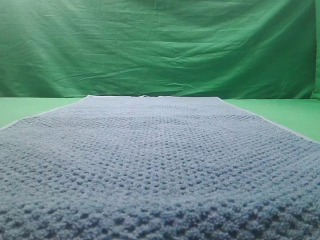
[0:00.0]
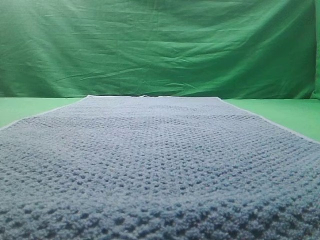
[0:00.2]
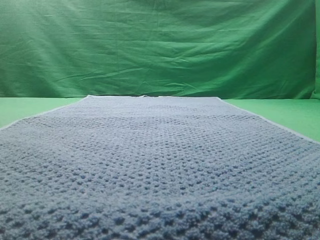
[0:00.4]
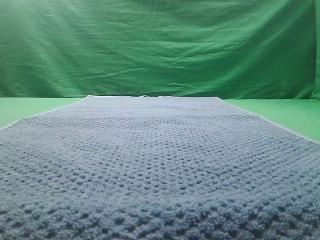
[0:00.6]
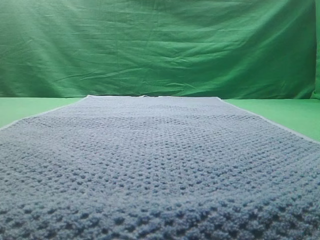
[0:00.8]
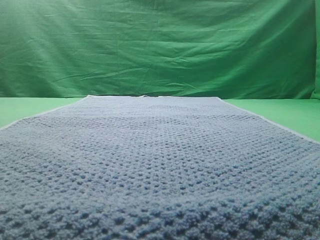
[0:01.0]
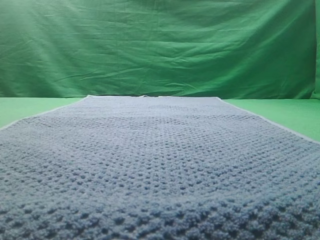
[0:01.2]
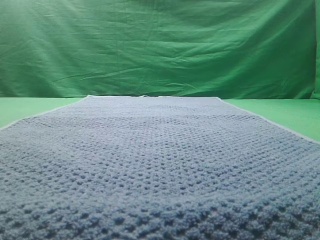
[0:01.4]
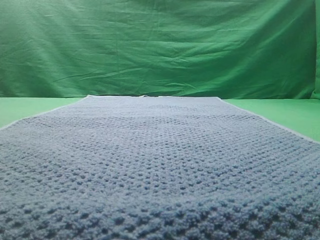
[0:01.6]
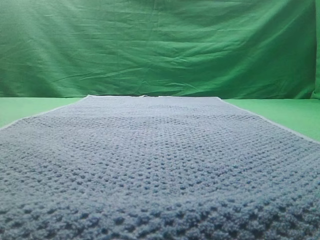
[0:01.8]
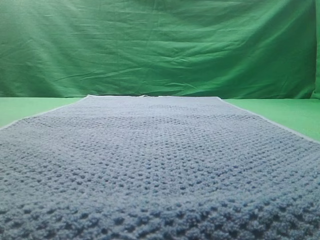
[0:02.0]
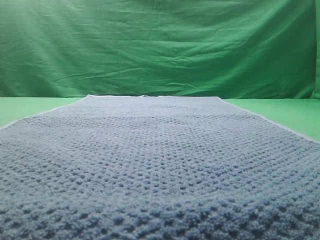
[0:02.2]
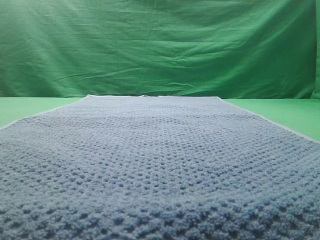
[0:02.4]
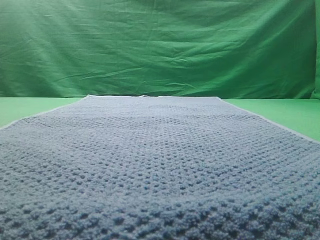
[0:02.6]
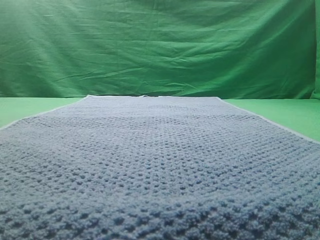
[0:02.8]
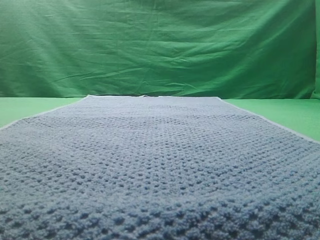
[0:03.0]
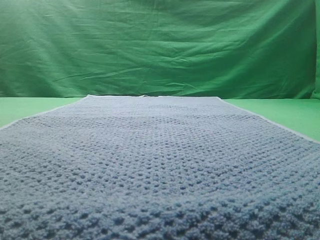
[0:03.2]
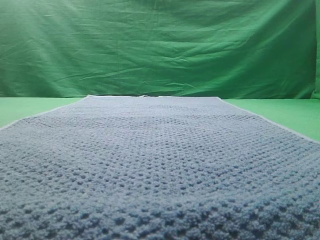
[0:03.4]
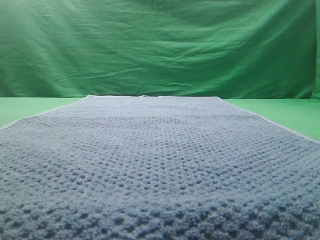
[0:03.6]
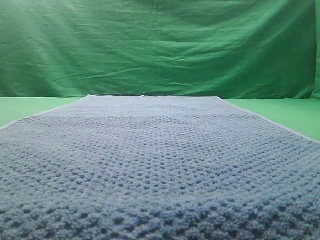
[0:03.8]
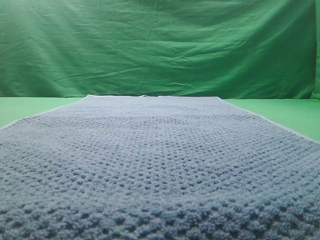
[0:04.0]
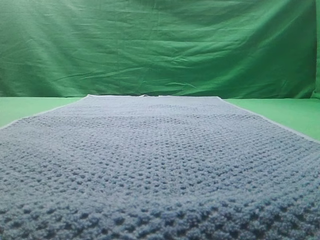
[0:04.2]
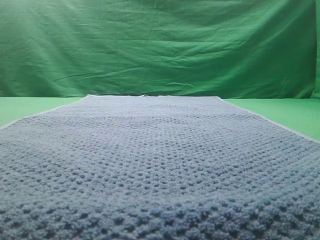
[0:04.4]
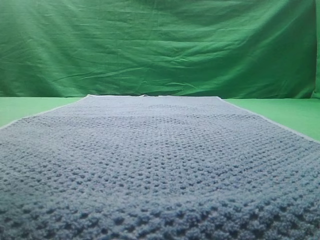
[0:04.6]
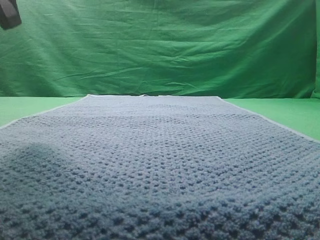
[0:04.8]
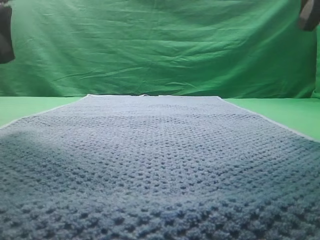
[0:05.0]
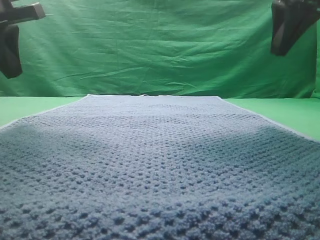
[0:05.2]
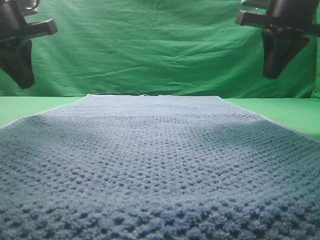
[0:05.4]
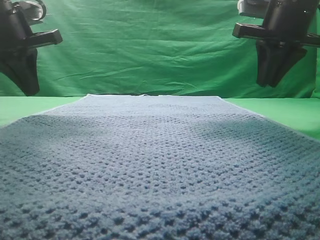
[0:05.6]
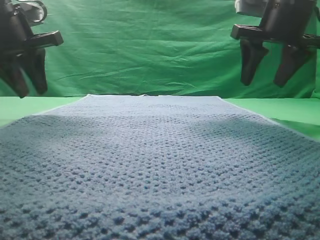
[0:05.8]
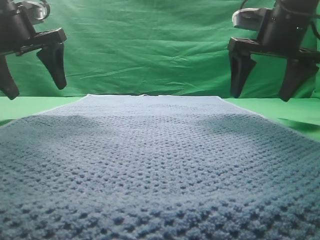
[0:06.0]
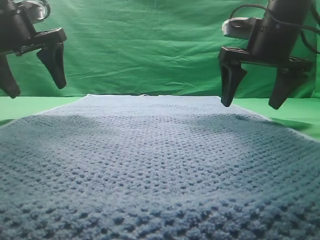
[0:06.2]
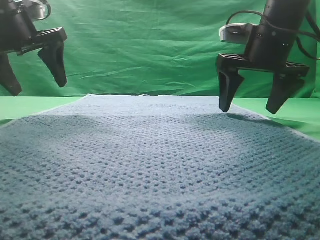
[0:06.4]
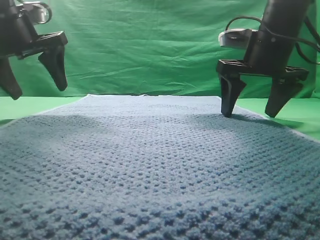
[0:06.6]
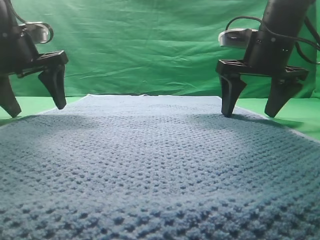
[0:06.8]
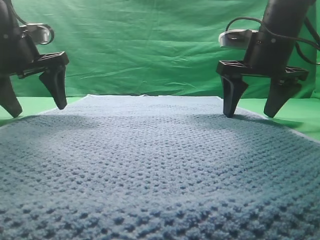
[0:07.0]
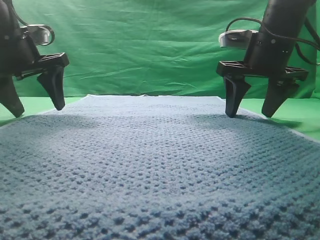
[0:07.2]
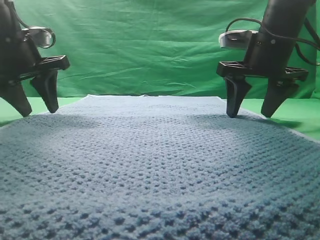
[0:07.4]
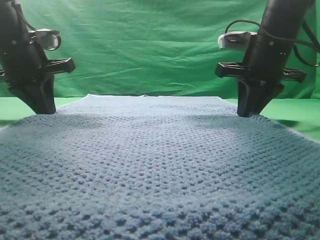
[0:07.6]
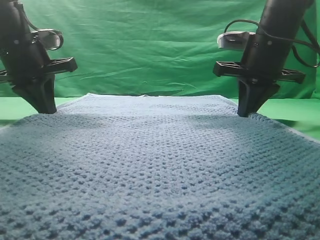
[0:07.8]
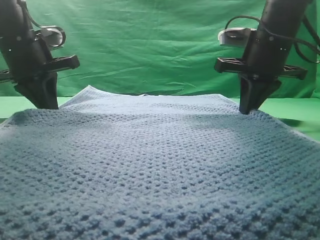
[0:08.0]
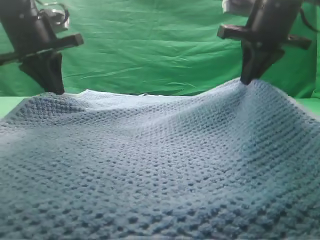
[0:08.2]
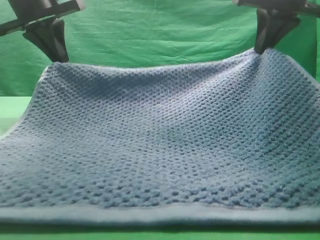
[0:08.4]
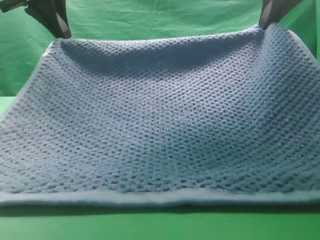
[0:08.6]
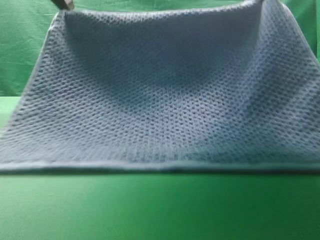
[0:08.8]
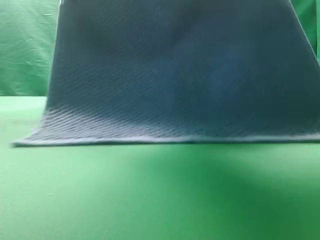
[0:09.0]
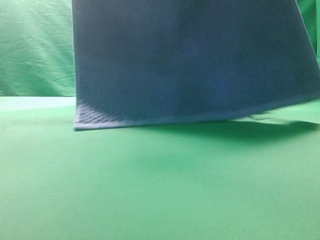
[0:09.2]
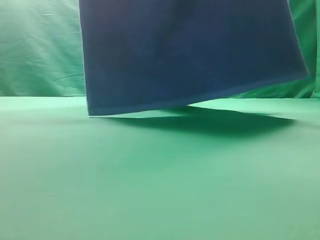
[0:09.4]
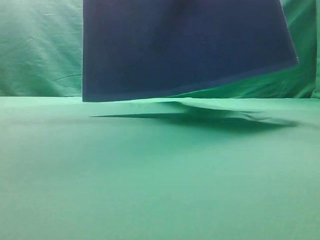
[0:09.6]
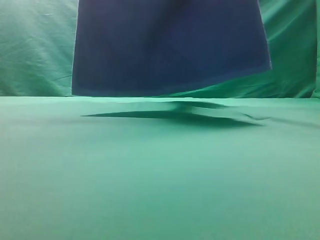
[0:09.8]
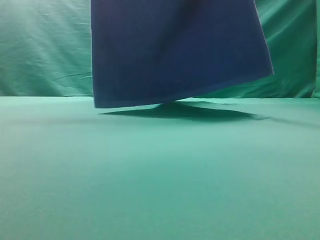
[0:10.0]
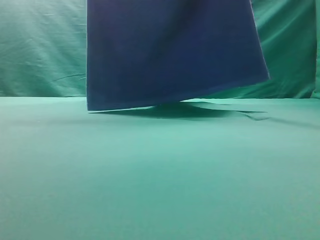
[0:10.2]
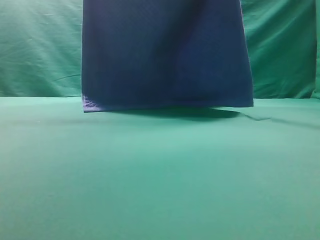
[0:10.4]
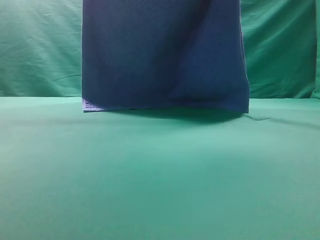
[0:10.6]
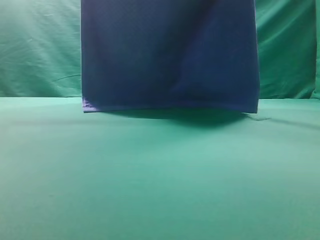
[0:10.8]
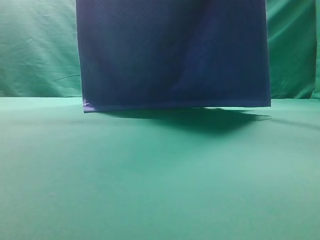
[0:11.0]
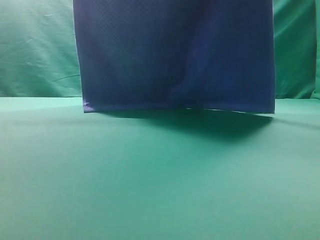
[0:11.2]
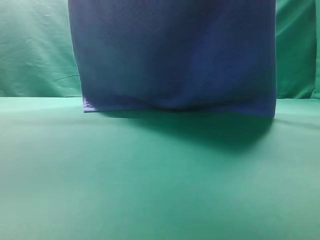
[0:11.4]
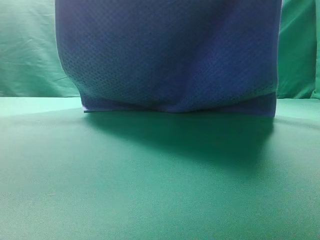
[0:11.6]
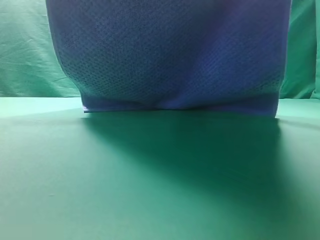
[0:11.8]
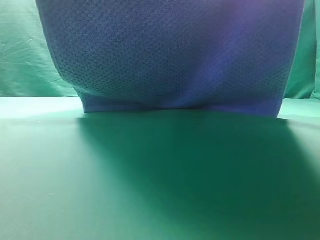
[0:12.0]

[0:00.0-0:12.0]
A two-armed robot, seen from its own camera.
Task of the whole recording: fold the towel on the table twice.
Step, 0:00.0 to 0:09.4: pick up the towel with two arm.

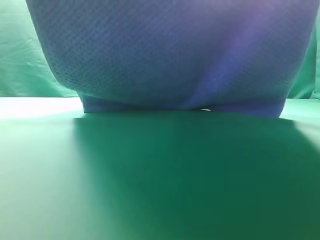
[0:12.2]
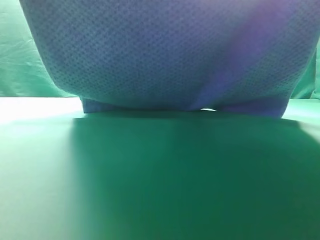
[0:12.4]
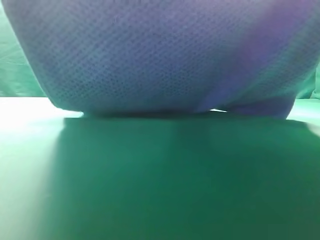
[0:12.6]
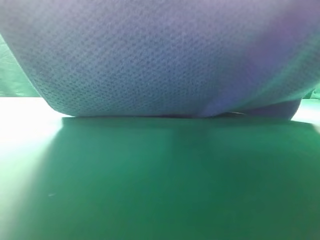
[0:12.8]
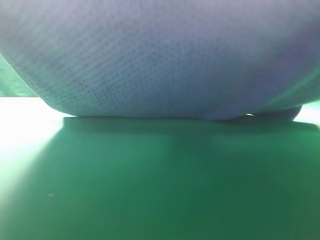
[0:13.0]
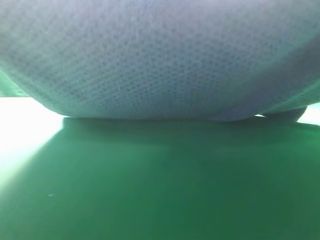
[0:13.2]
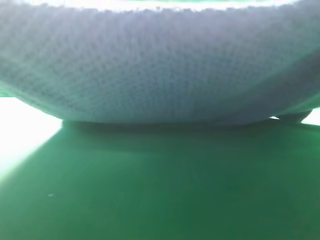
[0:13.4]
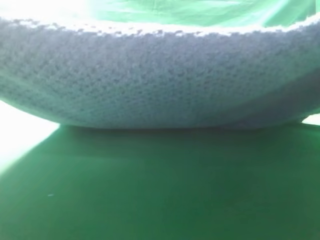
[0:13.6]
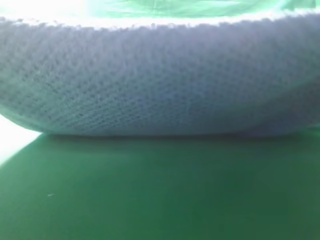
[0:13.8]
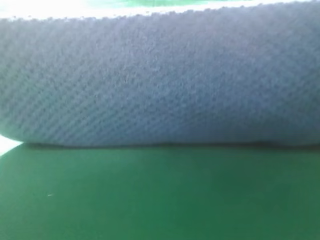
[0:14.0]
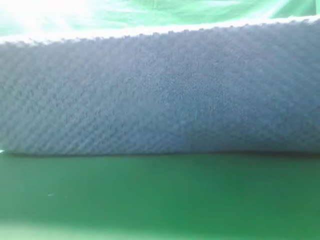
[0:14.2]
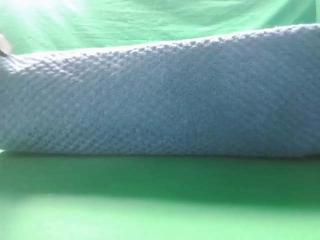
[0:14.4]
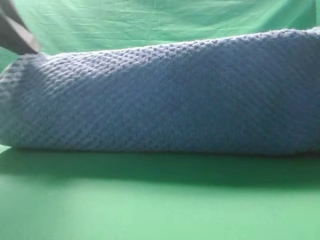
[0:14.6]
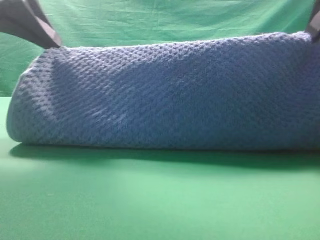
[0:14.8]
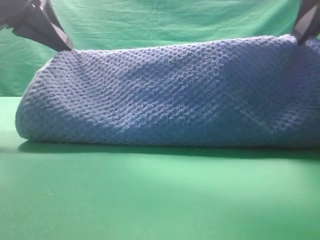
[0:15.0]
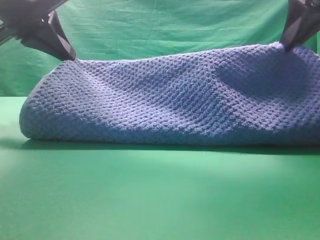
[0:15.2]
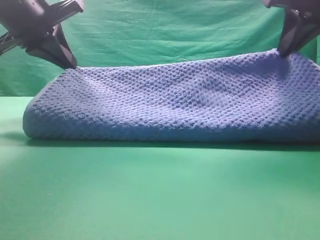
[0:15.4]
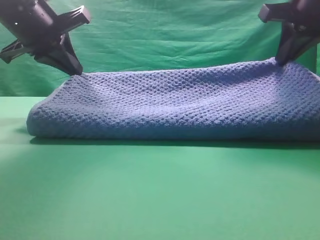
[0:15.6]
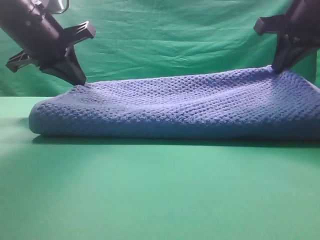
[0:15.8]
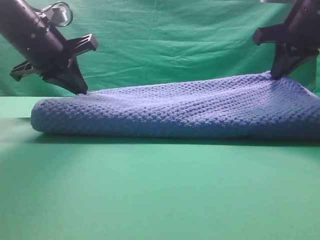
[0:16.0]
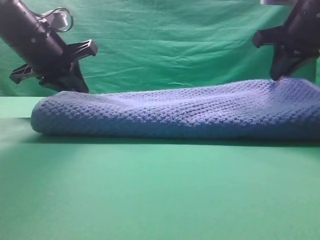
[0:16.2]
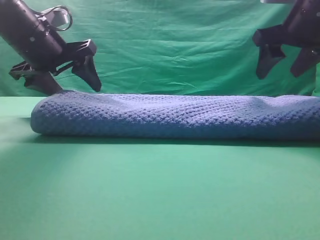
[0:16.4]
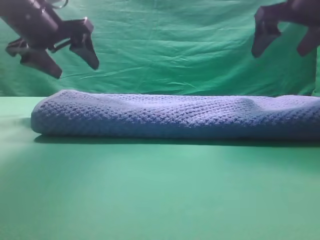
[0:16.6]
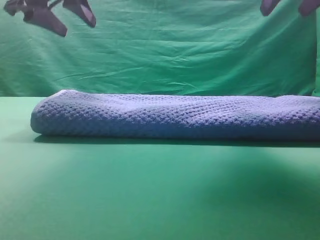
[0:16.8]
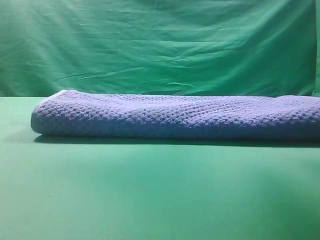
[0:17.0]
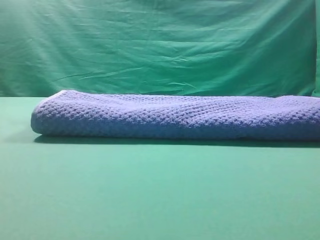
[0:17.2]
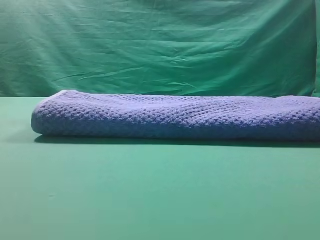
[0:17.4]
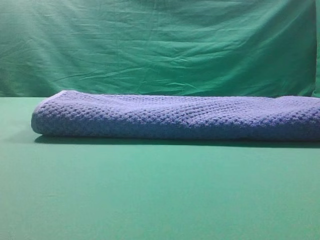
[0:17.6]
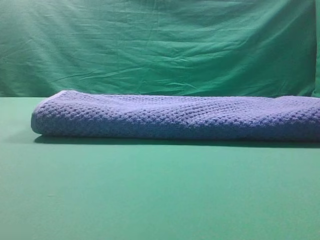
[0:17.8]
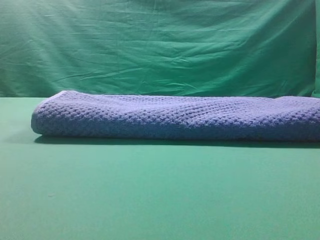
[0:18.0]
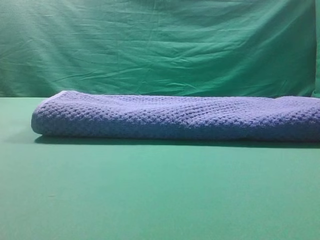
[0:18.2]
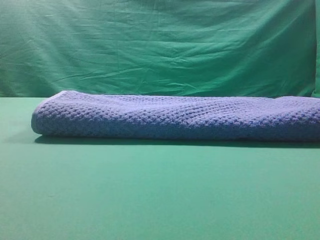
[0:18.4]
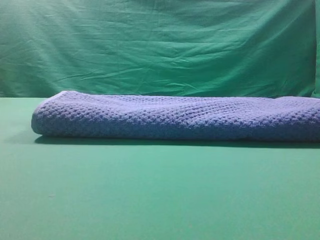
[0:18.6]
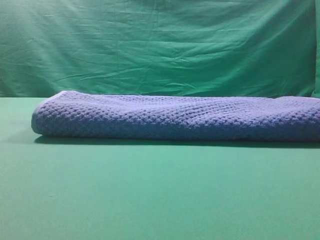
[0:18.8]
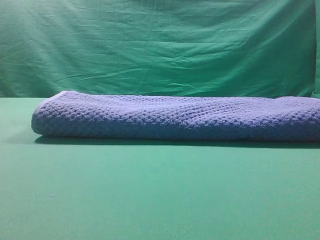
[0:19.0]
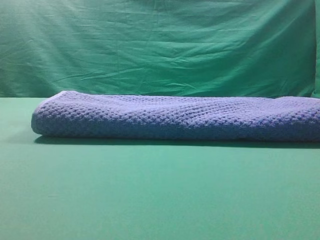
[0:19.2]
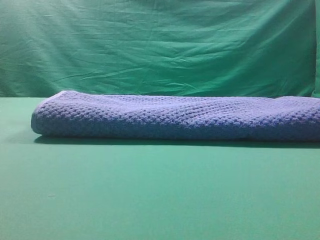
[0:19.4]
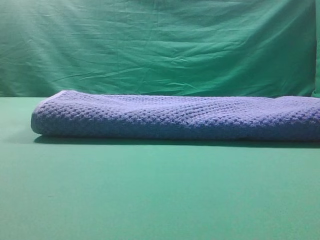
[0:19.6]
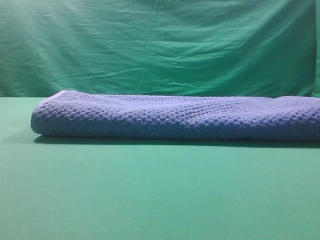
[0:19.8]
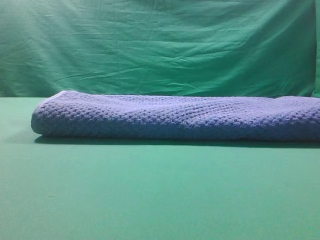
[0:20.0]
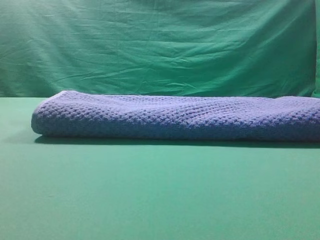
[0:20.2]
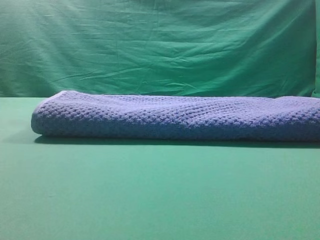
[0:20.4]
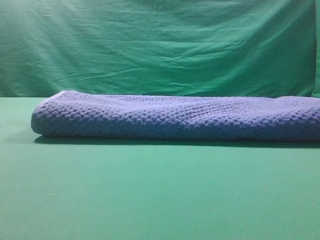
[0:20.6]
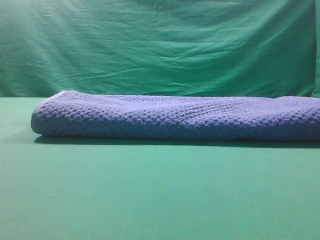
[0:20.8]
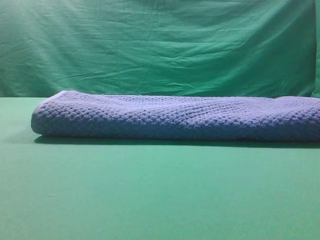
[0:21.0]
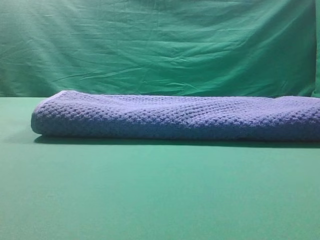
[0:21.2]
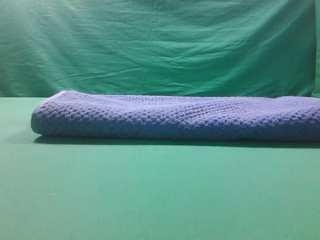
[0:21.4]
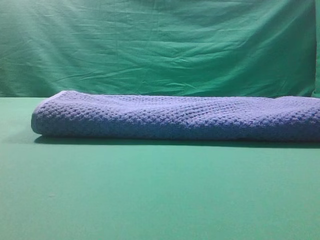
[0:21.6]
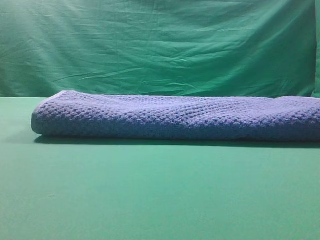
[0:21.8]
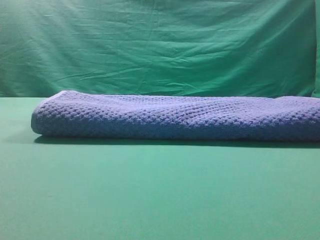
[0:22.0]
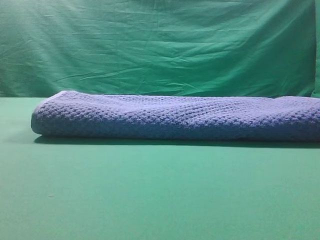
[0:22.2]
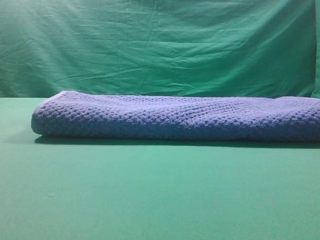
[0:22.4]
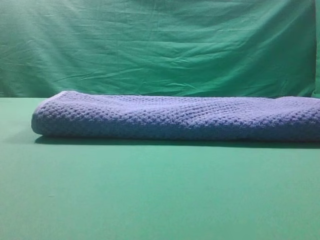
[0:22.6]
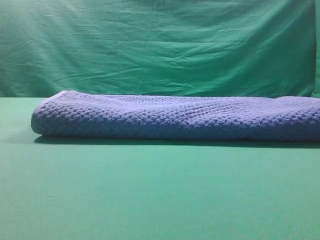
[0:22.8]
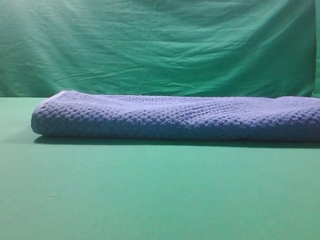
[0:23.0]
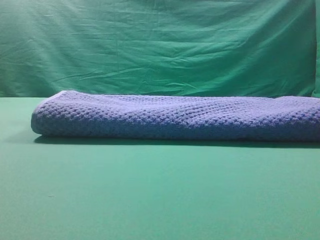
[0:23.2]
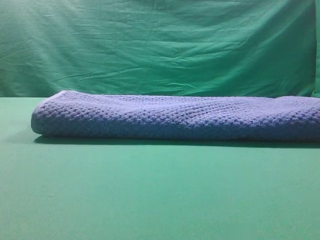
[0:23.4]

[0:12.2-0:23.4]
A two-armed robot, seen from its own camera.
Task of the whole recording: fold the towel on the table twice.
Step, 0:12.2 to 0:16.6: Fold the towel twice on the table.
